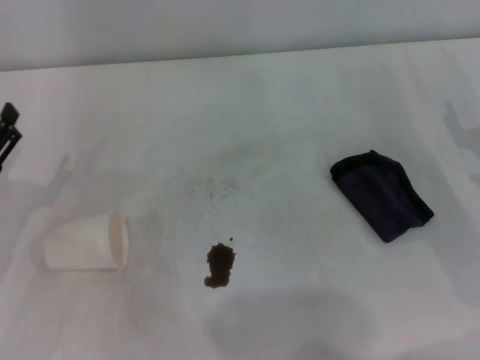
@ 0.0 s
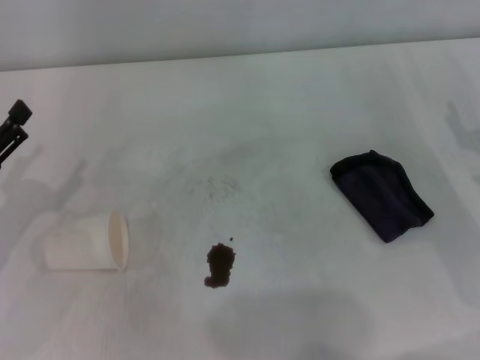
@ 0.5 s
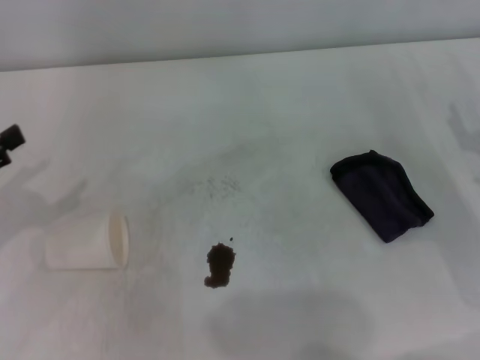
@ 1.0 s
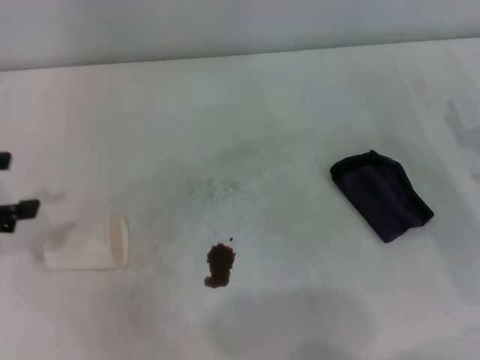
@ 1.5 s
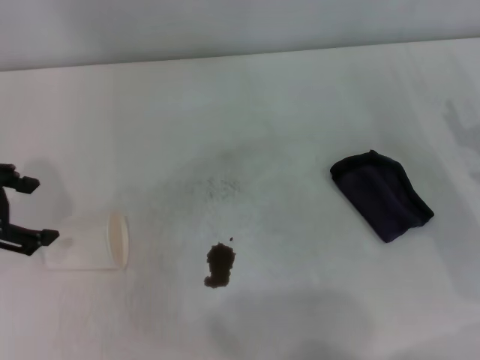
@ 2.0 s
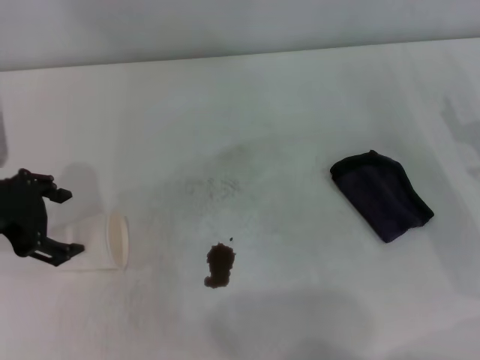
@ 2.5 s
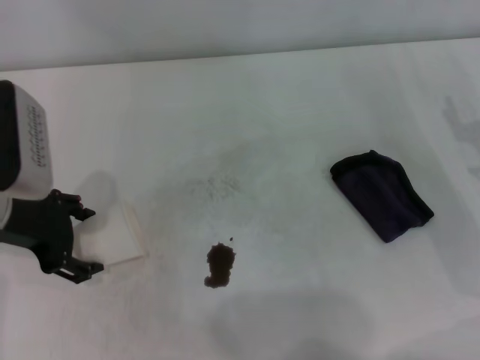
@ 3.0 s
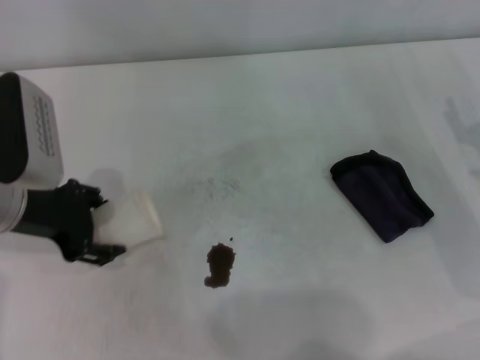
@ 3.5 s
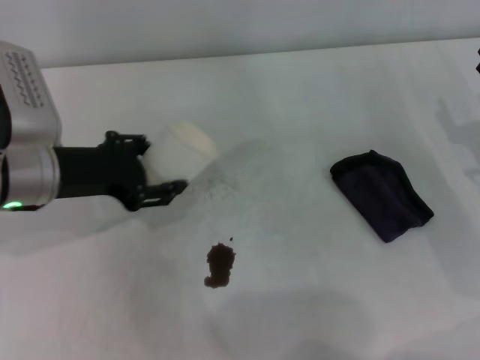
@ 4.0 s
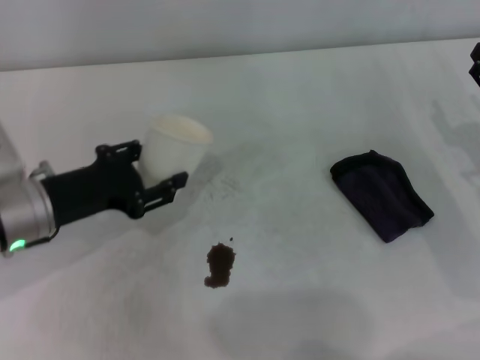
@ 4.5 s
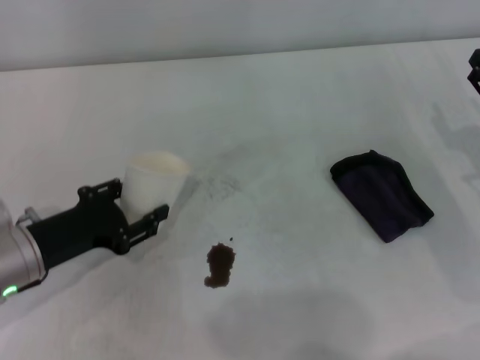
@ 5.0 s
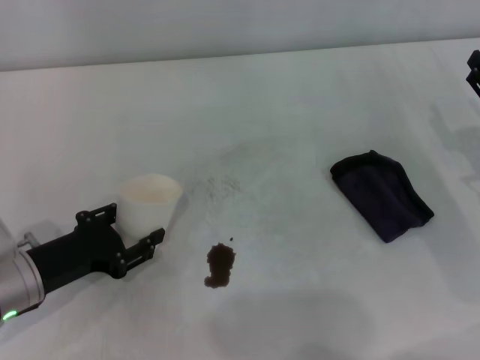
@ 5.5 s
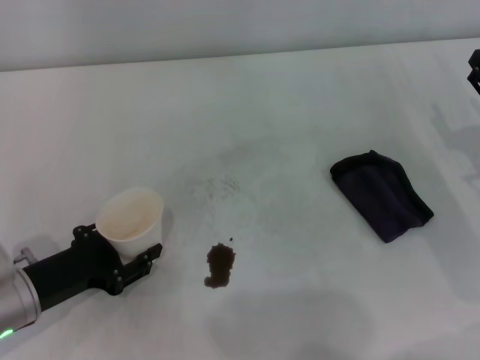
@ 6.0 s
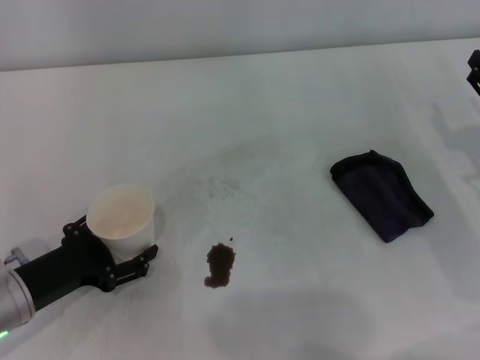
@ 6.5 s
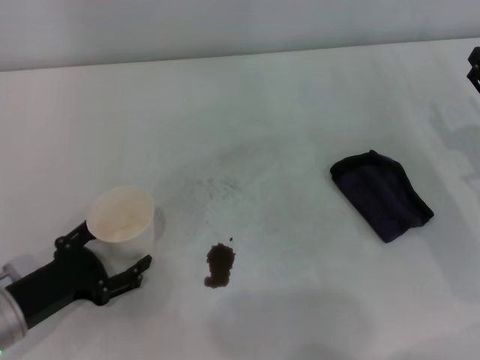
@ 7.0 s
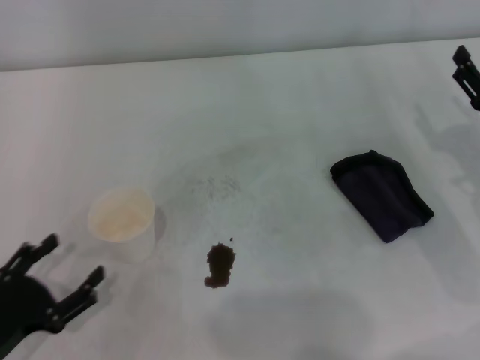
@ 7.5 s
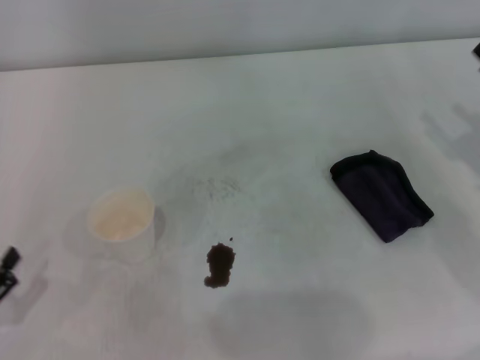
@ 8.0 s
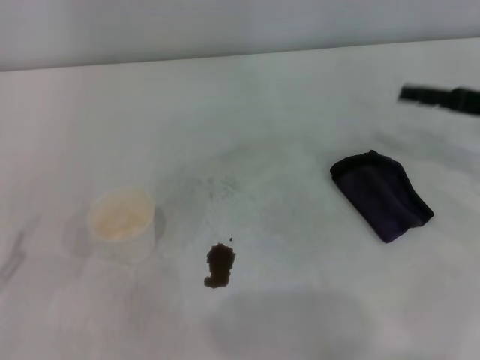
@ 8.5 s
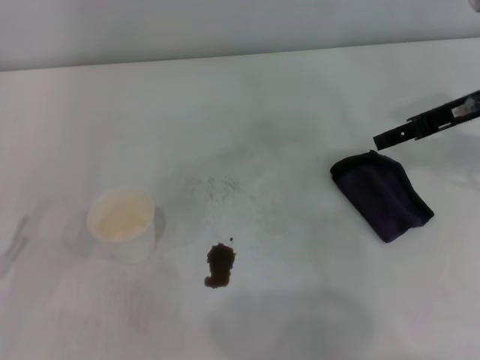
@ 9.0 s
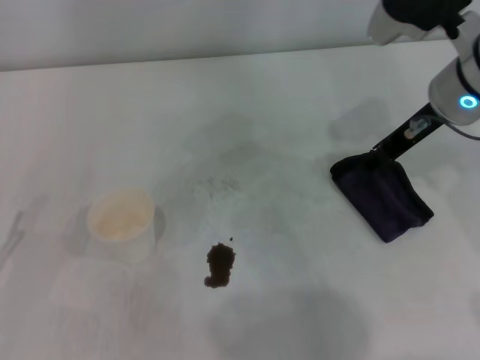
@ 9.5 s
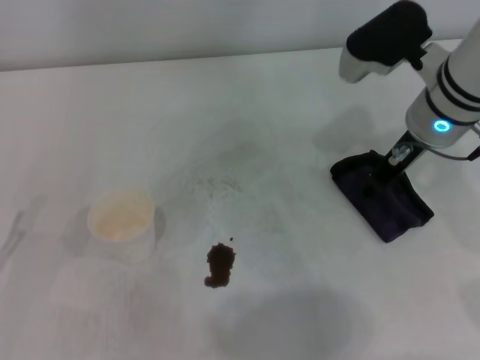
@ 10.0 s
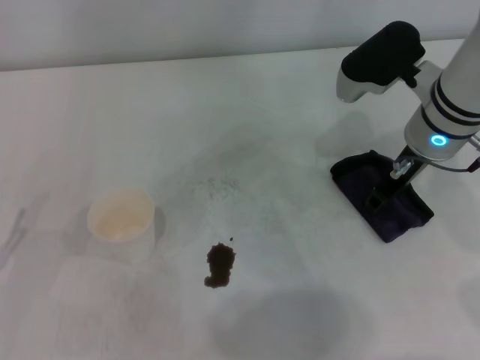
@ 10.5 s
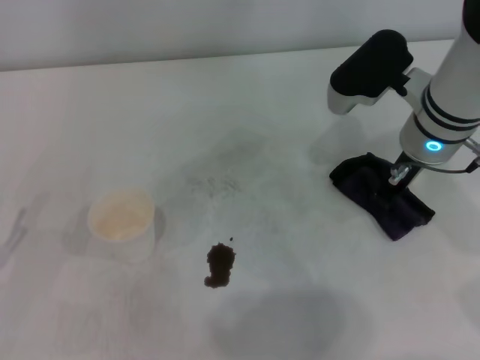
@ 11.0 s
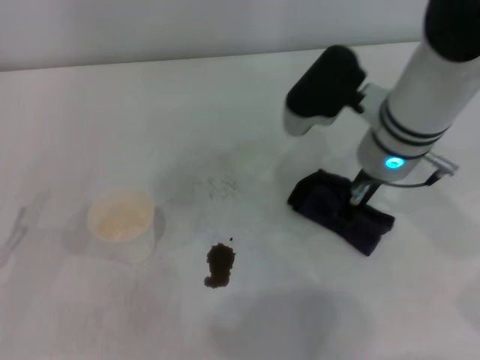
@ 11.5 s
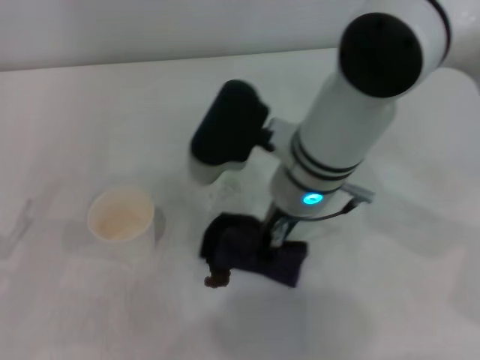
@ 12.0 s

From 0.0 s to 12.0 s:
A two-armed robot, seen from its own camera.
Step, from 0.0 s to 3.0 s: Grasp the paper cup with the left gripper.
Step, from 3.5 s to 6.0 s: Stand the paper cup upright with the left gripper.
Step, from 6.5 s to 11.0 s: Grasp the rag with the right gripper.
From 0.0 s to 2.0 s: The left gripper moves upward, some 15 cm.
From 2.0 s to 4.0 s: The left gripper goes some 10 cm to the right and downward, and closes up.
From 4.0 s to 6.0 s: The left gripper goes approximately 15 cm downward and backward.
From 6.0 s to 8.0 s: The left gripper shifts roughly 15 cm backward and to the left, and opens its fingers.
From 8.0 s to 10.0 s: The right gripper heads to the left, forward and upward, covering approximately 20 cm.
From 10.0 s to 12.0 s: The right gripper goes approximately 15 cm to the left, and closes its fingers.

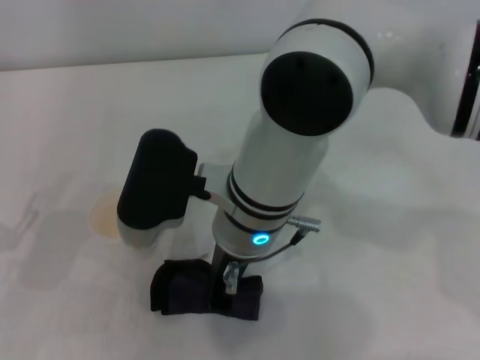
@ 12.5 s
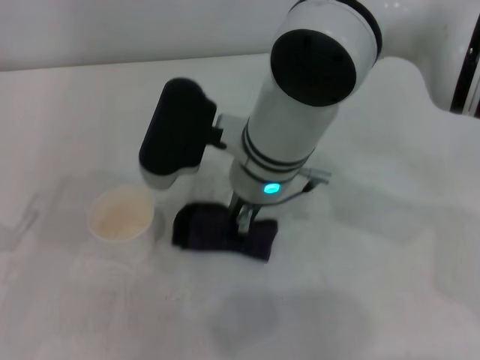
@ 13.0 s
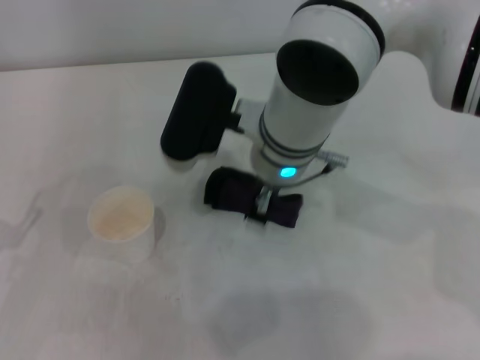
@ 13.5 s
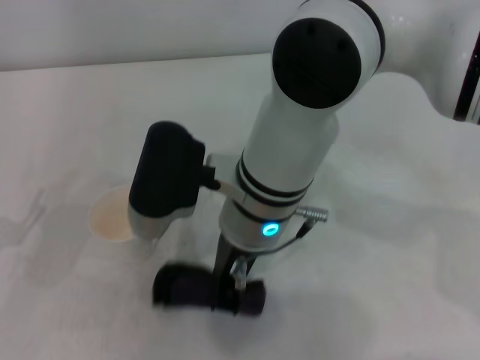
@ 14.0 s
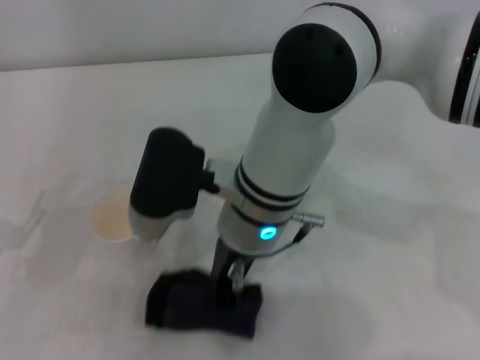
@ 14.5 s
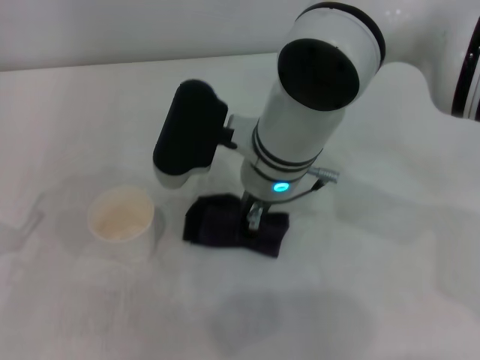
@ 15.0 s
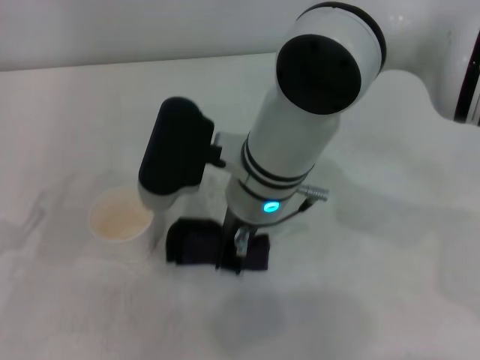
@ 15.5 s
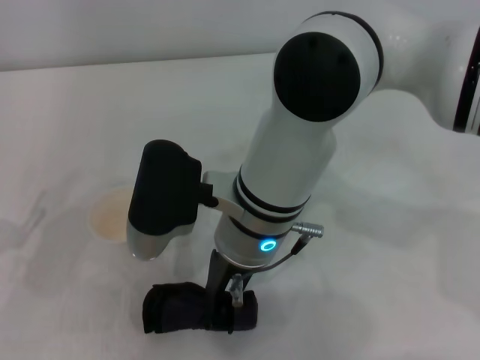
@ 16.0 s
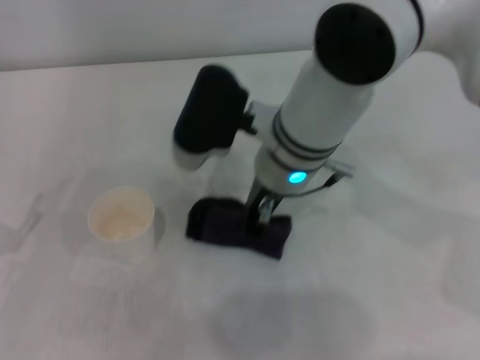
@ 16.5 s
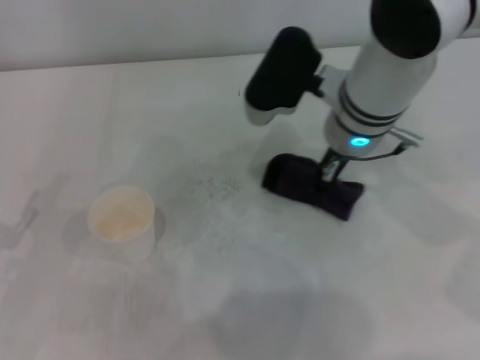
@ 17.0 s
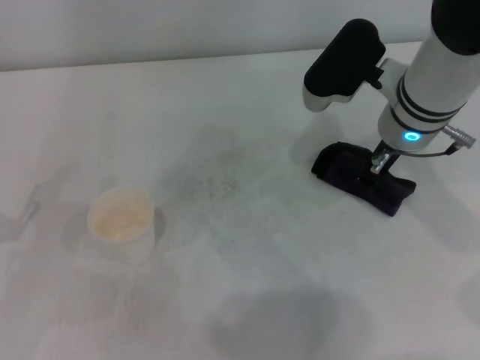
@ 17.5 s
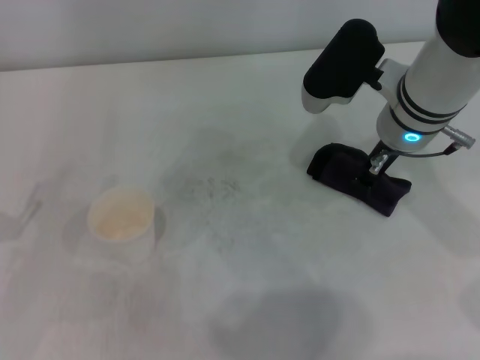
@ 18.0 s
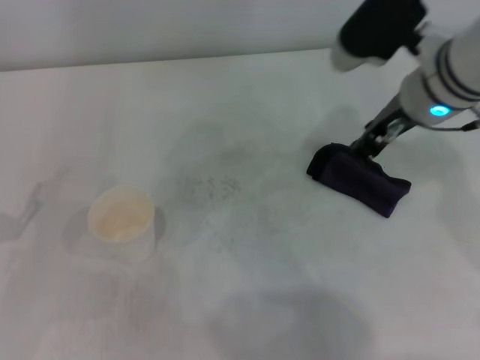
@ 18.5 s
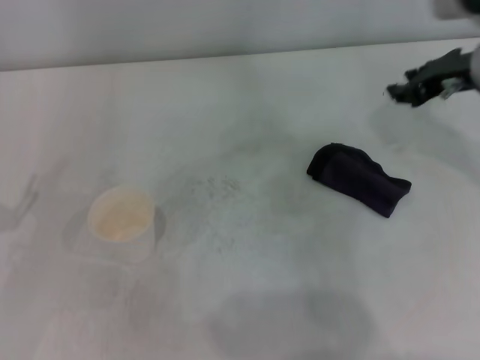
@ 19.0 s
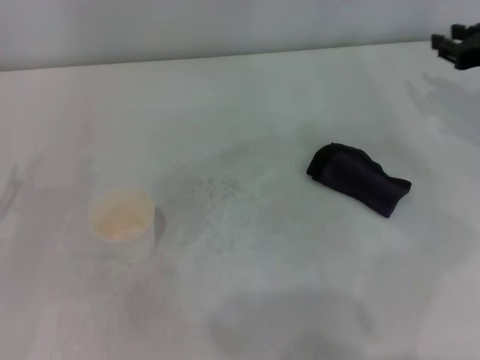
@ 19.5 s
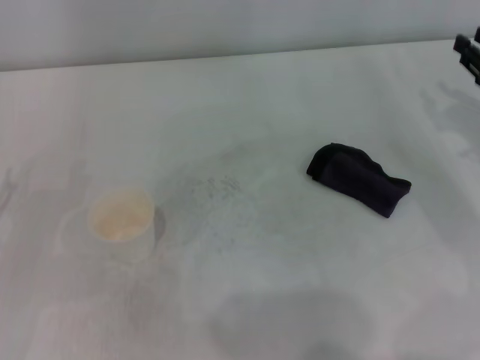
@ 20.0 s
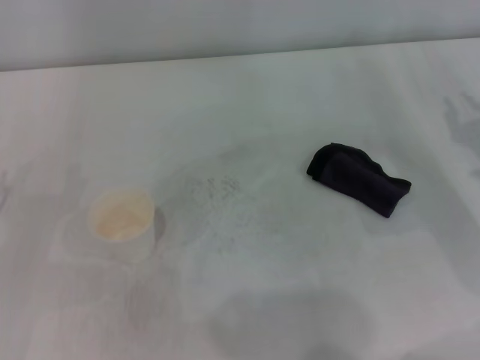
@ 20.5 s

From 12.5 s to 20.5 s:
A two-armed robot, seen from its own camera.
Step, from 12.5 s to 17.0 s: Wipe the stains off the table with the right gripper.
Step, from 17.5 s to 18.0 s: Place the rag on the table with the right gripper.
From 14.5 s to 16.5 s: The right gripper swings forward and backward, some 5 cm each way, with 2 reversals.
From 16.5 s to 18.5 s: The right gripper moves to the right, roughly 15 cm, and opens its fingers.
From 18.5 s to 20.5 s: The right gripper heads to the right, downward and backward, covering about 20 cm.

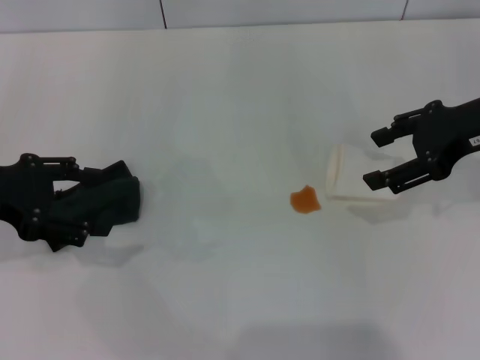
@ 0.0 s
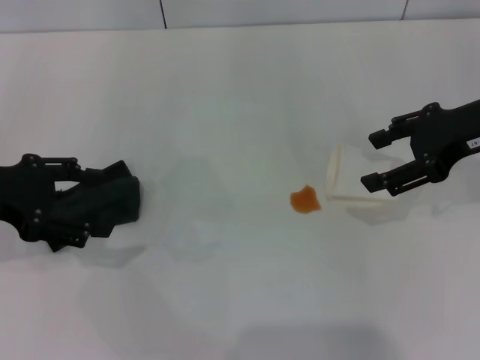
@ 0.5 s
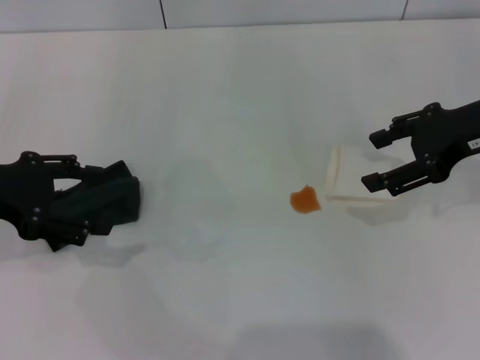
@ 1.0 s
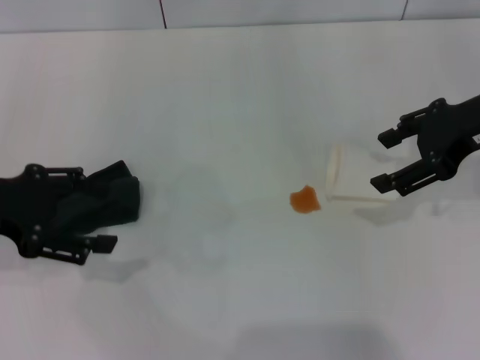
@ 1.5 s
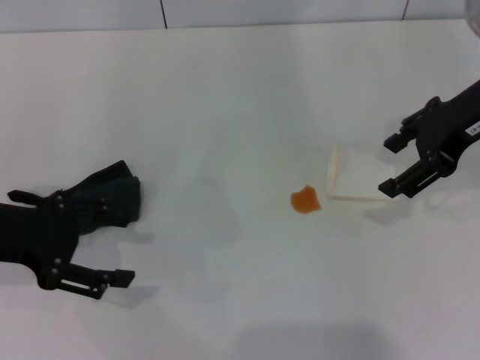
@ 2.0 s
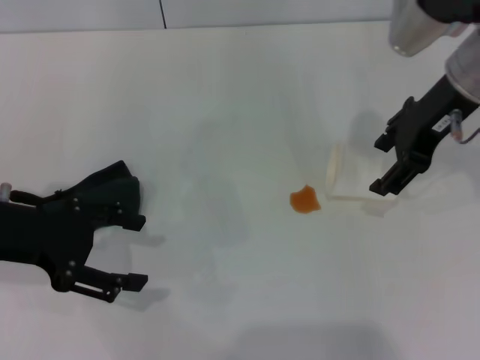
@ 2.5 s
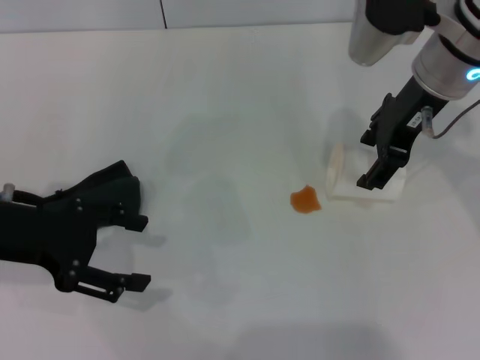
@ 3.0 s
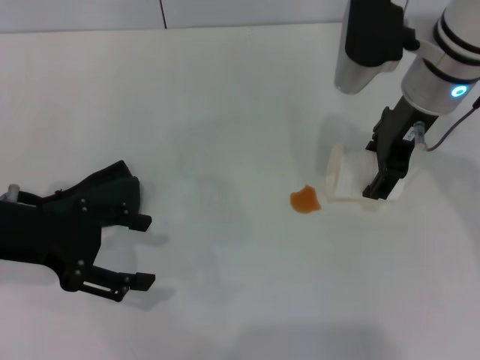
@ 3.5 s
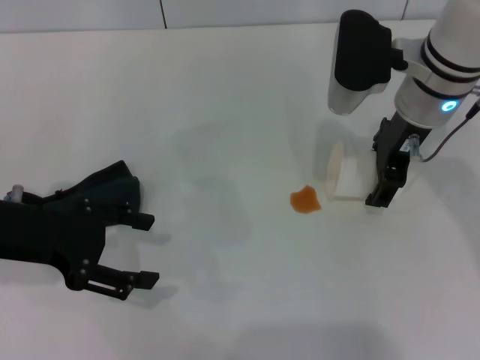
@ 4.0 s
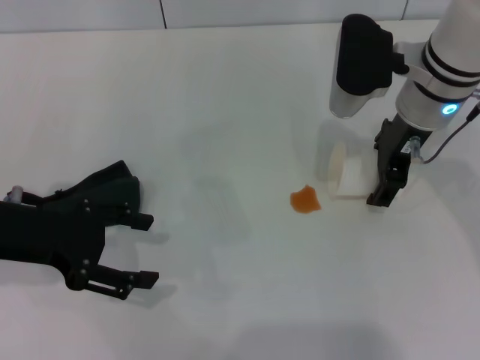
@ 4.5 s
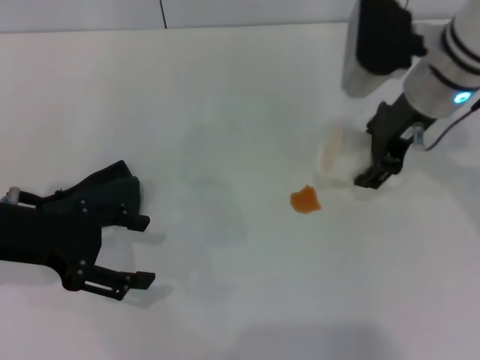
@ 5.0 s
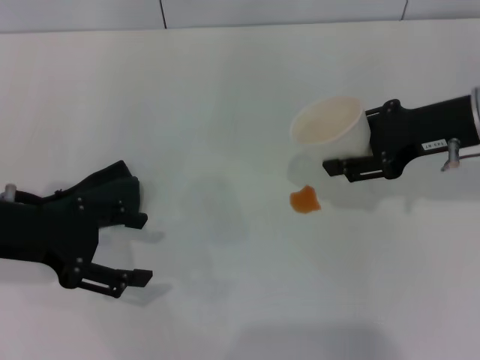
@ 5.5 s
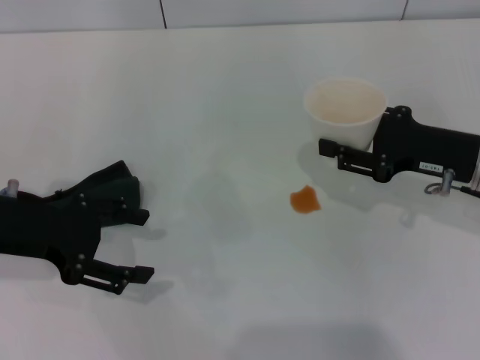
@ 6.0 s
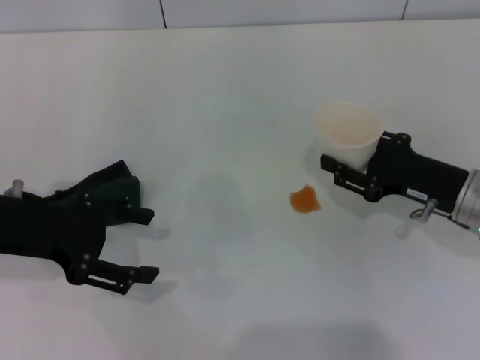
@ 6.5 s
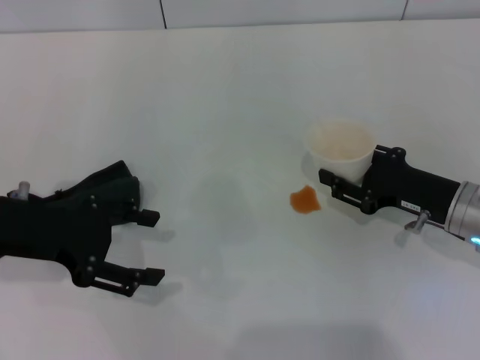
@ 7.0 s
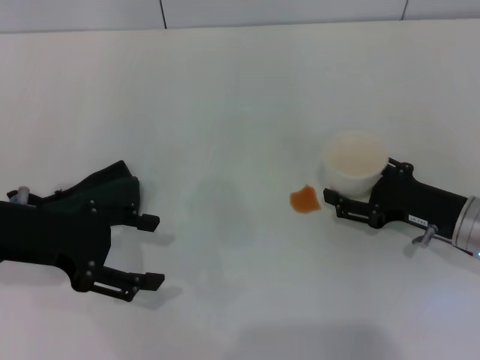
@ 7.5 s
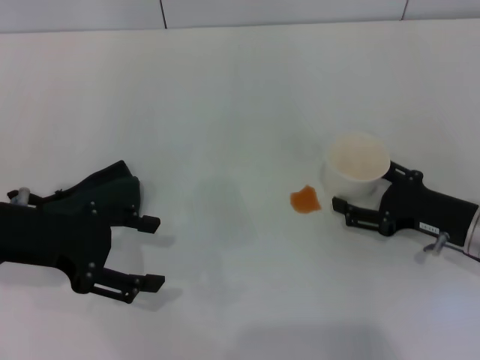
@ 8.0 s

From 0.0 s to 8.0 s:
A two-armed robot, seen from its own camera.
Step, from 0.0 s to 3.5 s: Grasp the paper cup with the right gripper.
From 0.0 s to 2.0 s: The grippers move only a little.
From 2.0 s to 4.0 s: The right gripper travels to the left and downward by about 10 cm.
From 4.0 s to 6.0 s: The right gripper shifts some 15 cm to the right, downward and backward, and closes its fingers.
From 6.0 s to 8.0 s: The right gripper moves downward, about 5 cm, and opens its fingers.
